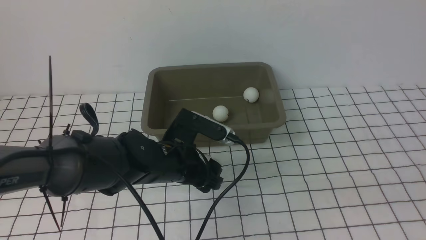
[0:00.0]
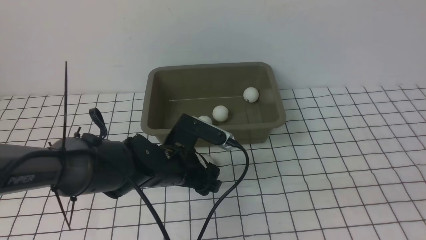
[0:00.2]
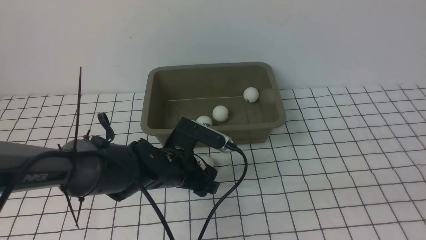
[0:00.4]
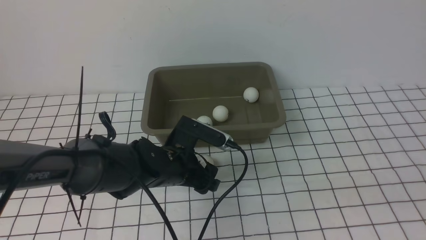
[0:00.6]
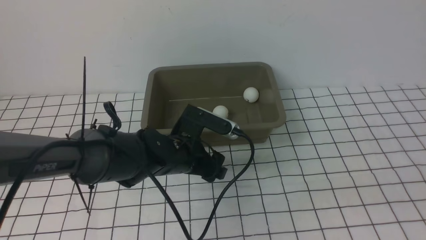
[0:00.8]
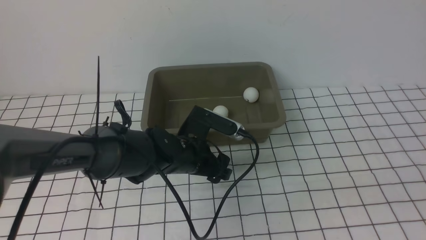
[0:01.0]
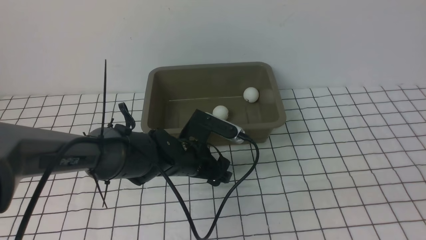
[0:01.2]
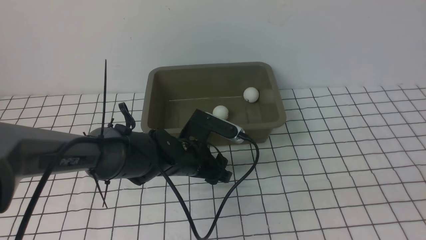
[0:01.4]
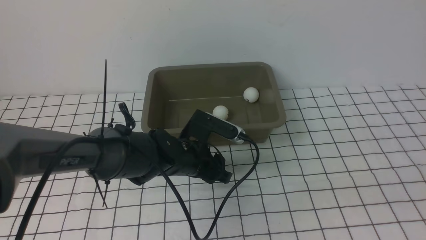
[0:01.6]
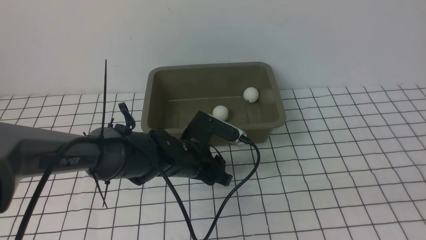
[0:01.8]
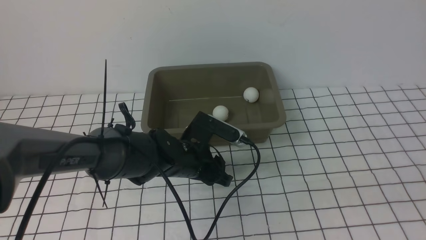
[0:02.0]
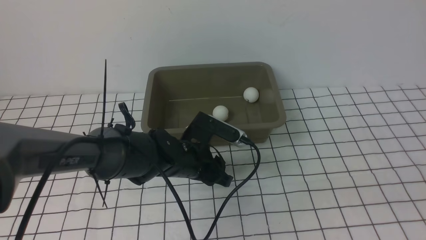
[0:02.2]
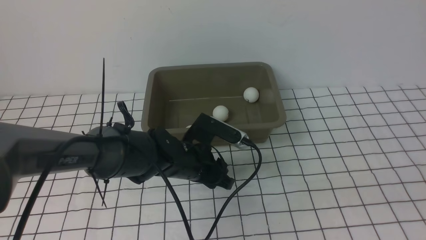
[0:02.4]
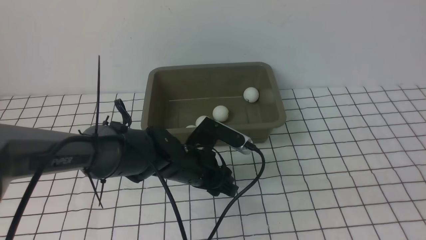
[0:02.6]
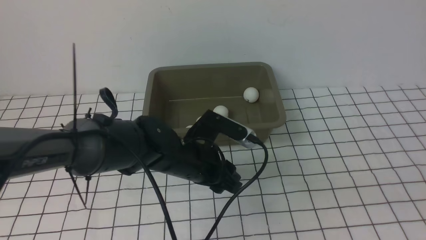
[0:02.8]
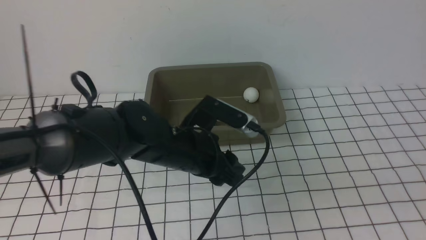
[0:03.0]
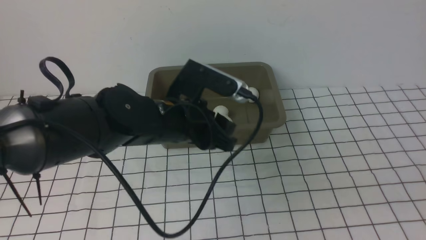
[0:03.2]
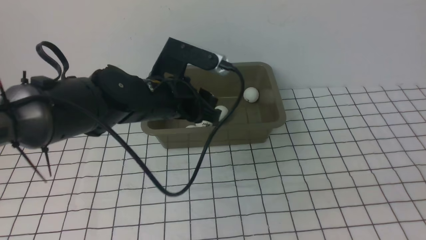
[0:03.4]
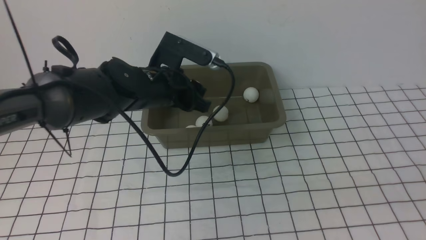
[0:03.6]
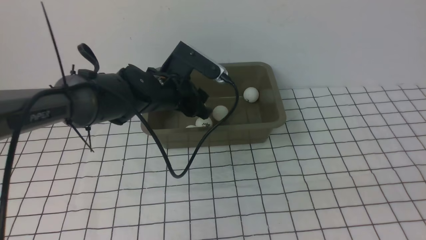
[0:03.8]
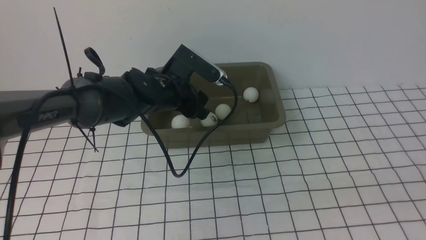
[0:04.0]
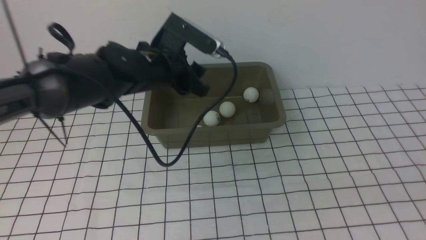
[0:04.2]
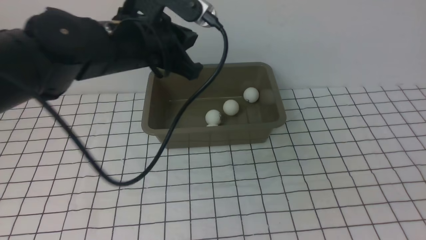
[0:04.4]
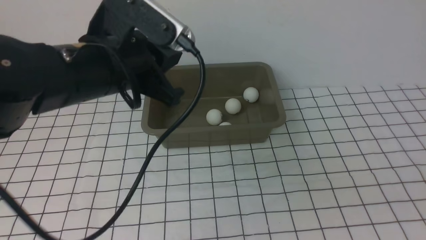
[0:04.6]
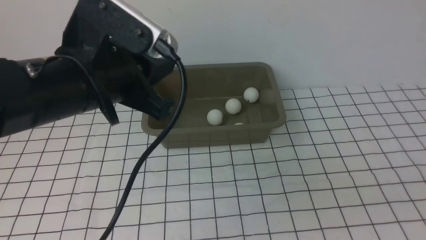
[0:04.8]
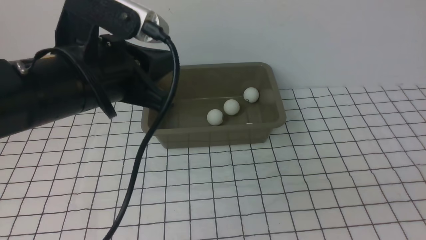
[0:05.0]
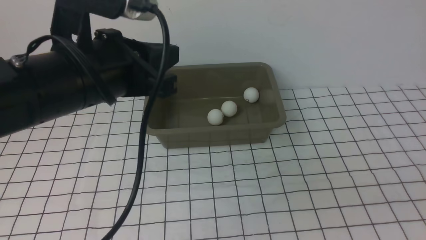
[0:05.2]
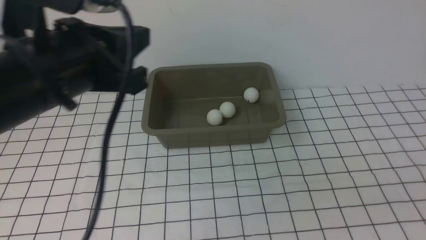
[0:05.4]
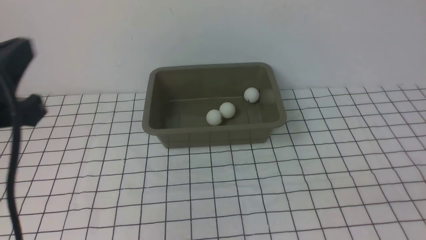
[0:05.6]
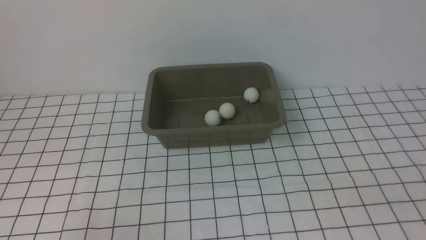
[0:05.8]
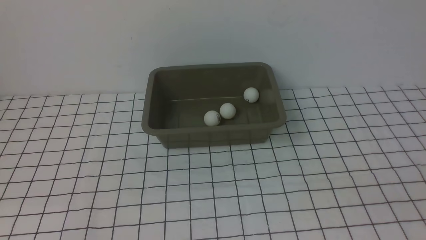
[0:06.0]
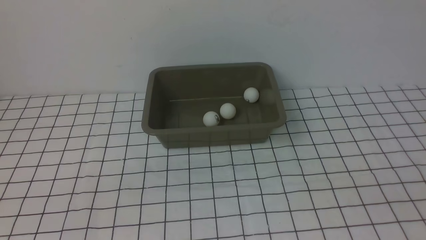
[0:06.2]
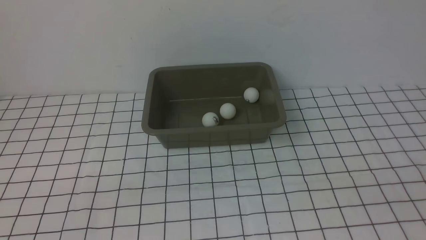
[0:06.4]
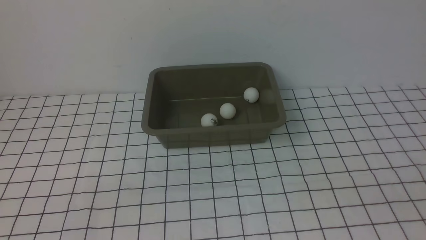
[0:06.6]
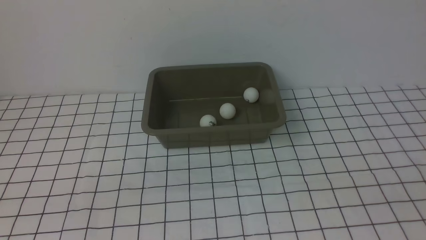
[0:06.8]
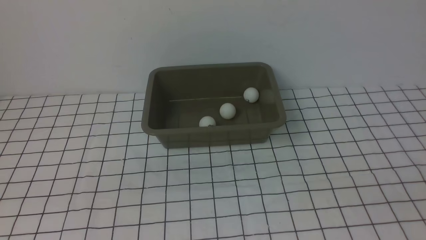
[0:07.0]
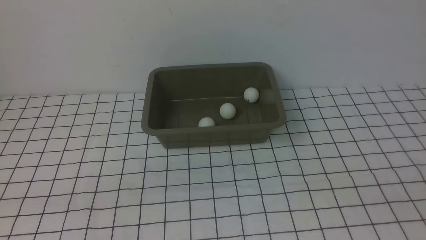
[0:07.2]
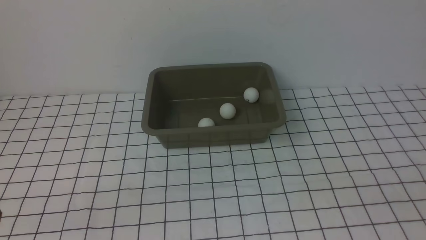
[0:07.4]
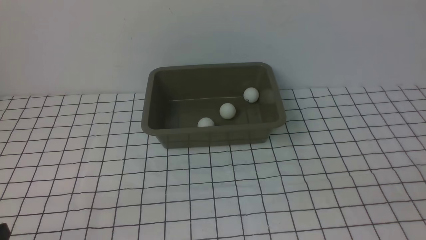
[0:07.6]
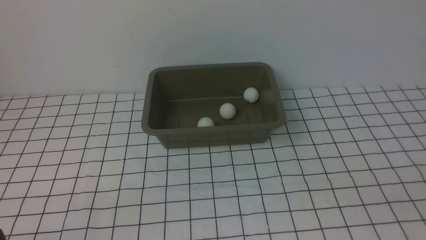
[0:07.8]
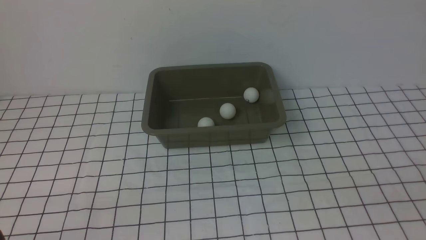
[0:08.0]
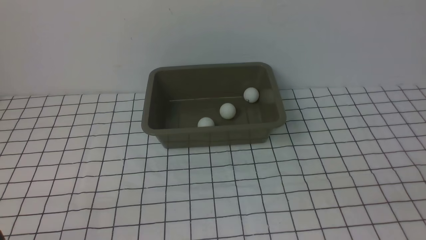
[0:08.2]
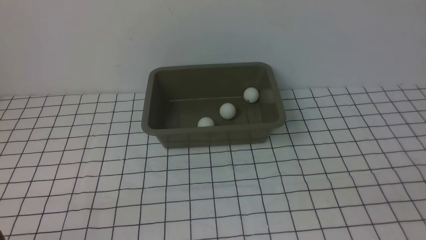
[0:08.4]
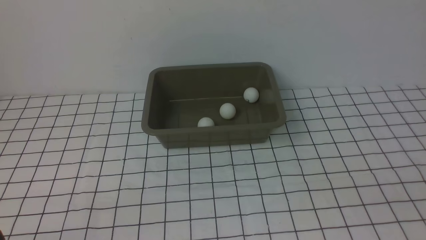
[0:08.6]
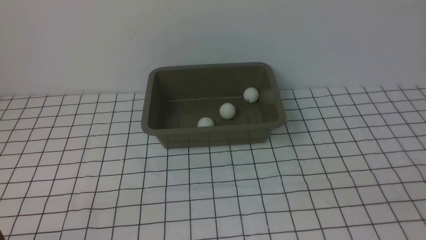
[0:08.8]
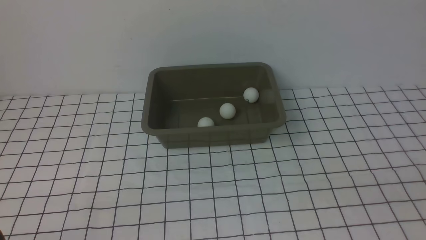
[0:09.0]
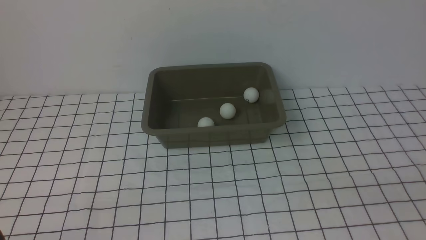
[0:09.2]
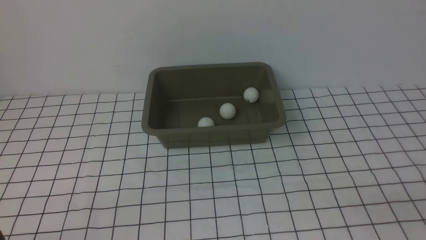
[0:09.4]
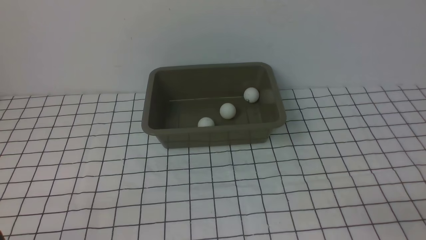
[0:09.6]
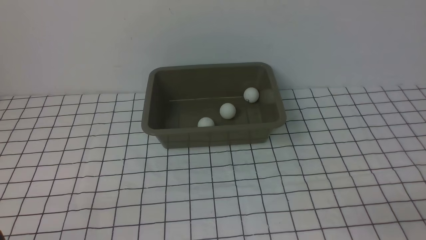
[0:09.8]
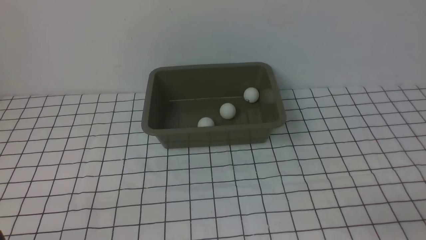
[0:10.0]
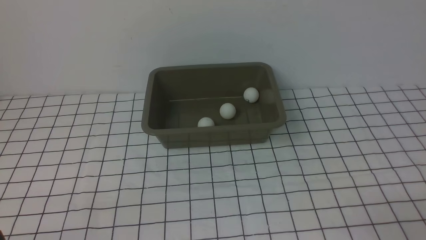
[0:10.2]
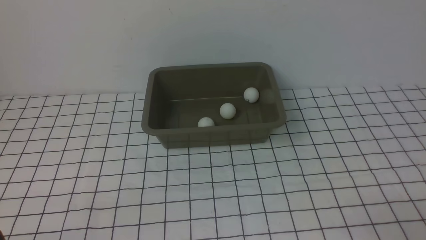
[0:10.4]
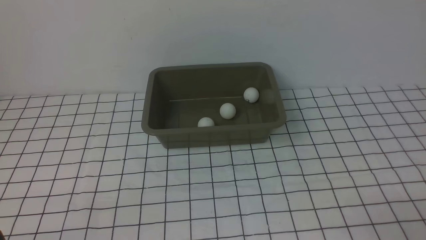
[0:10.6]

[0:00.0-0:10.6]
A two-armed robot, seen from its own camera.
Step, 0:00.0 to 0:03.0: use the left arm to clamp the table tennis ball closest to it.
Step, 0:03.2 to 0:04.0: use the left arm to put the table tennis ball into the box.
0:00.0 to 0:01.6: The left gripper closes its fingers.
0:01.6 to 0:03.0: The left gripper goes some 10 cm upward.
0:03.0 to 0:04.6: The right gripper changes place by some 5 cm, while the left gripper moves upward and to the left, some 10 cm, and closes.
0:04.6 to 0:06.0: The left gripper heads backward and to the left, covering approximately 30 cm.

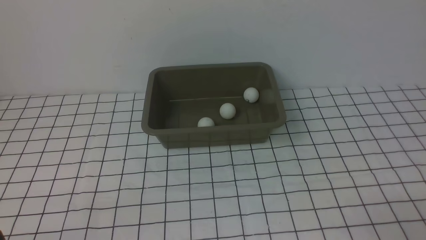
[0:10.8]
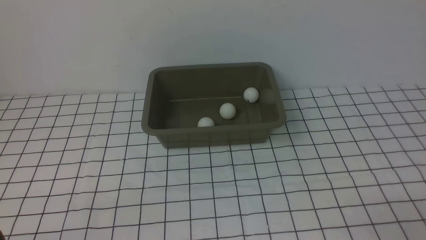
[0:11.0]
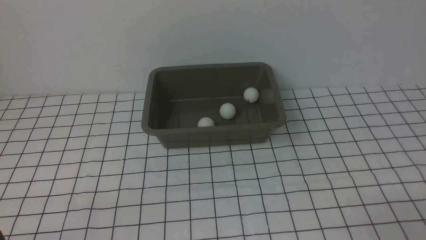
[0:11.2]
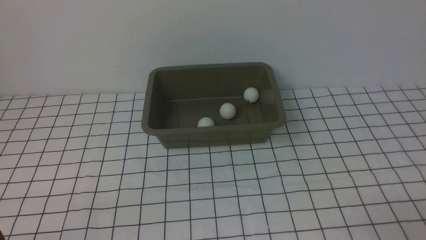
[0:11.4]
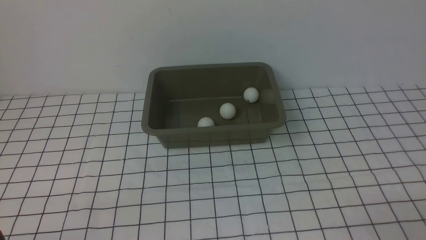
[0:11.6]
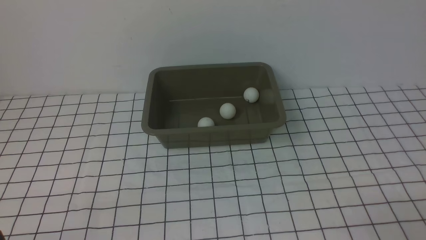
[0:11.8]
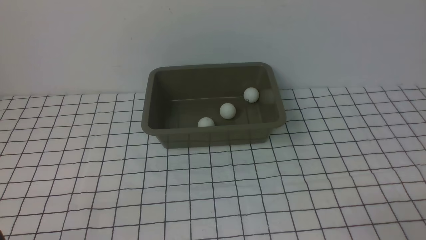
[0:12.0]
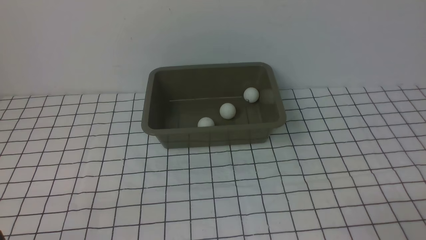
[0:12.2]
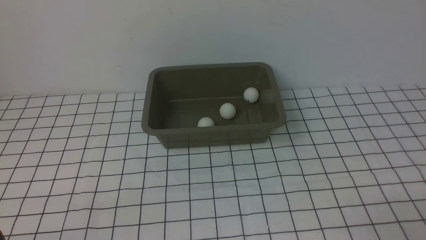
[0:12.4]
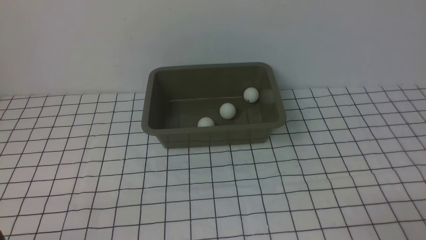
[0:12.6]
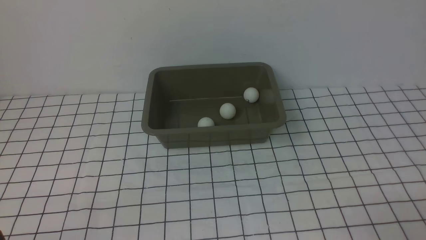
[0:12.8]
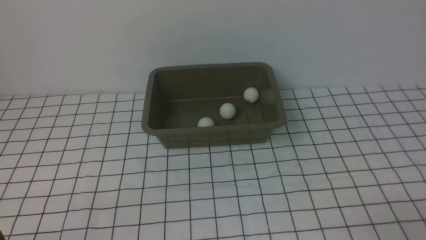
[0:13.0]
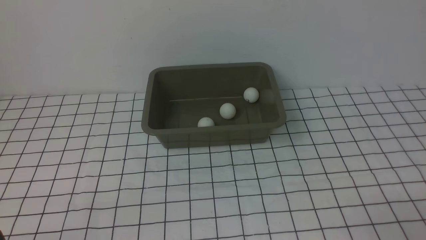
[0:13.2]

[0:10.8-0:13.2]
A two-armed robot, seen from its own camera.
0:10.8 to 0:13.2: Both grippers stay put.

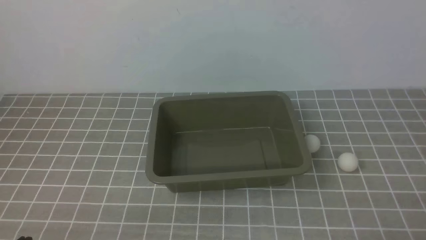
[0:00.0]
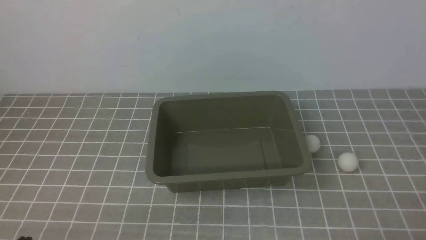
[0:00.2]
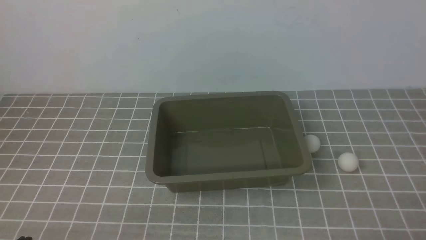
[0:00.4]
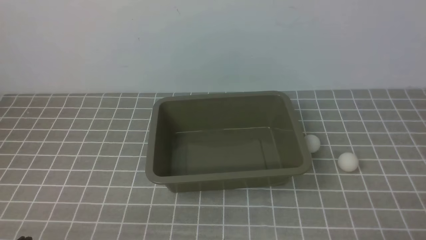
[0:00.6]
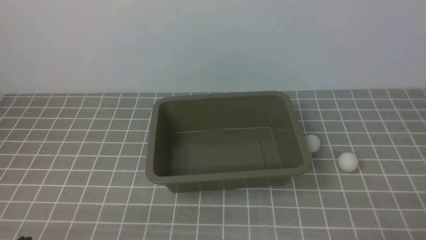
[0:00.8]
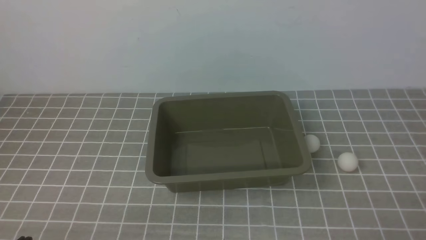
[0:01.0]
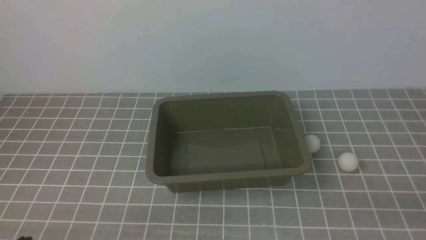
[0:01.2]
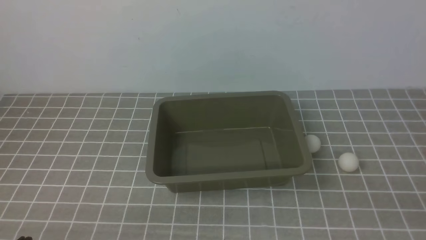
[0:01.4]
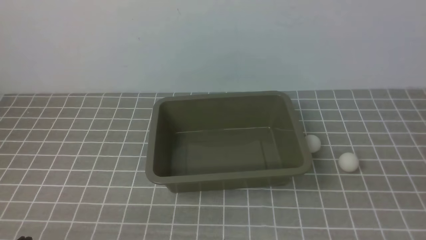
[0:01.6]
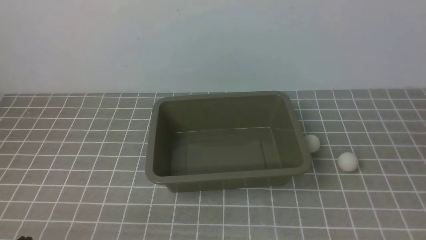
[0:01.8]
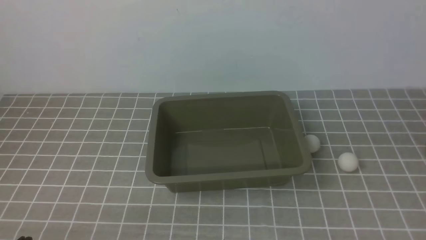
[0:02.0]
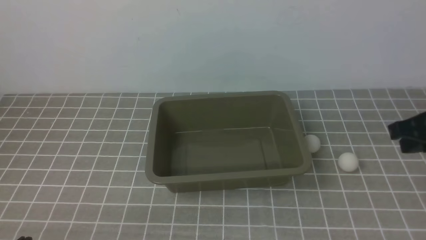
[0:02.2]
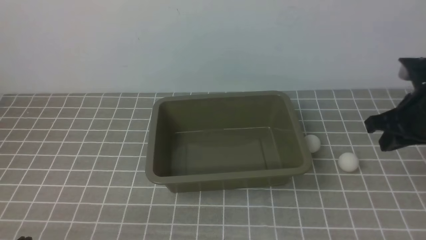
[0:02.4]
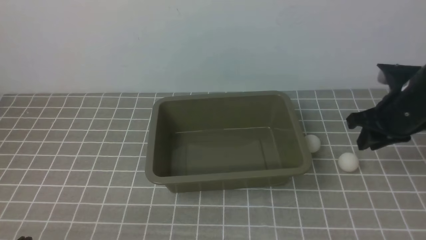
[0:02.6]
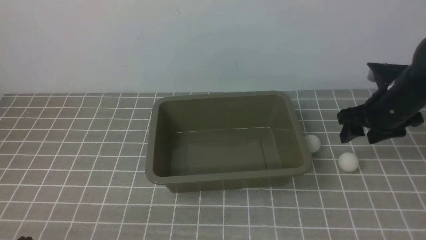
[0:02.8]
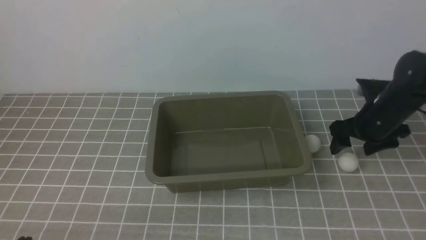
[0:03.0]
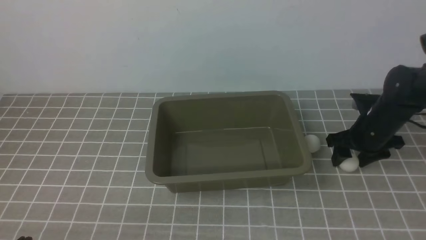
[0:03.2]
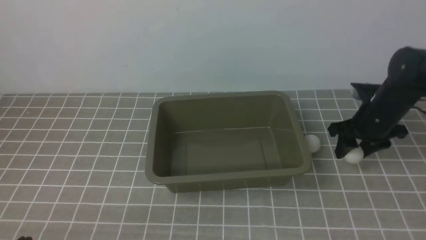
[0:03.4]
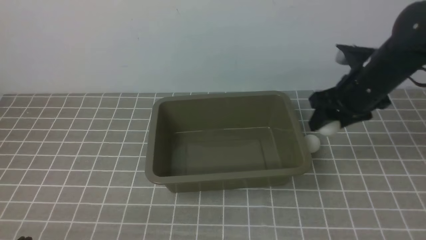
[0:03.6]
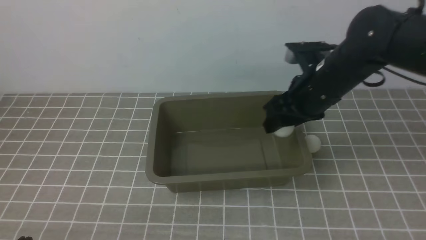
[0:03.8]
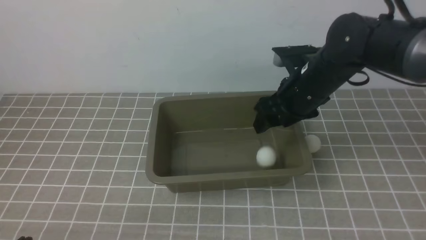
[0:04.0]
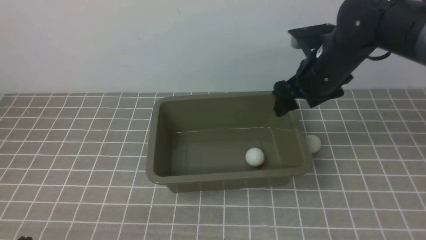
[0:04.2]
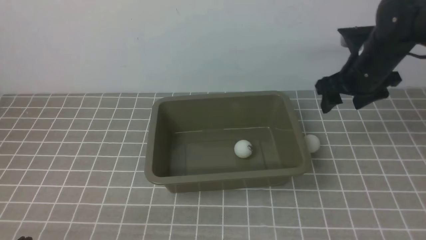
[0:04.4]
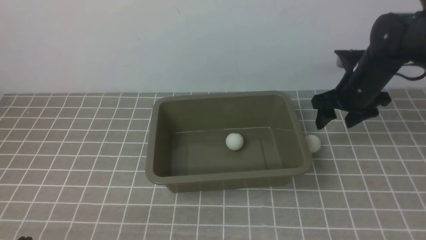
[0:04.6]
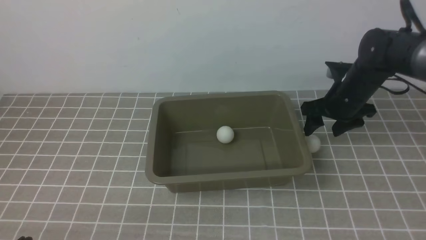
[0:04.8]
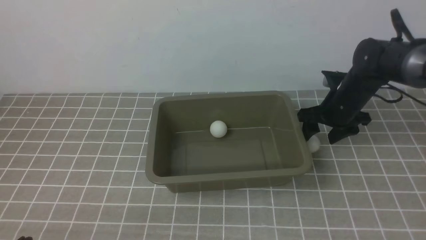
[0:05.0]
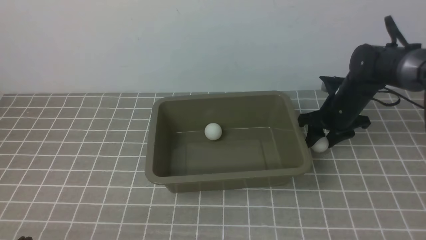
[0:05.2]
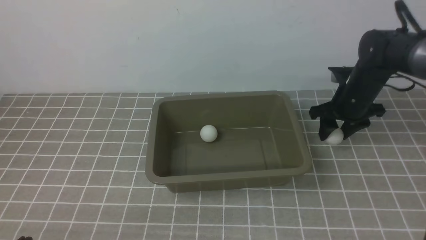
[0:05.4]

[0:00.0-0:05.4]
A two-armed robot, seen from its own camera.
Step, 0:00.0 to 0:03.4: use the right arm to clamp the table tennis ball closest to it.
Step, 0:03.6 to 0:04.0: use the right arm to put the table tennis ball into the box.
Step, 0:04.2 to 0:05.4: use the right arm to clamp the table tennis ball closest to it.
0:01.4 to 0:02.8: The right gripper shifts approximately 30 cm forward, and opens.
0:02.8 to 0:04.0: The right gripper travels to the left by some 15 cm.
0:04.0 to 0:05.4: The right gripper heads to the right, downward and forward, covering roughly 15 cm.
